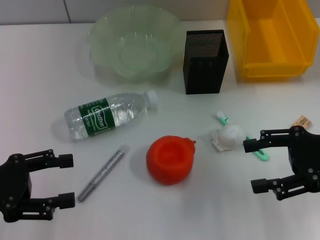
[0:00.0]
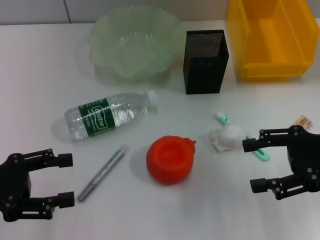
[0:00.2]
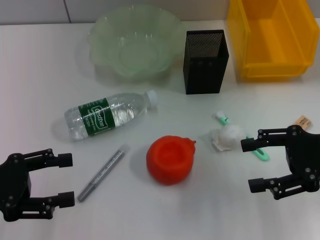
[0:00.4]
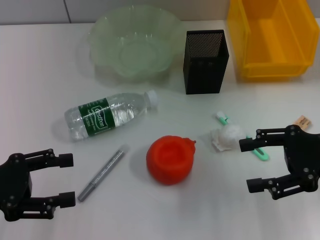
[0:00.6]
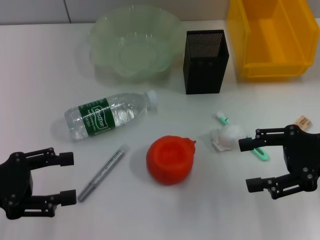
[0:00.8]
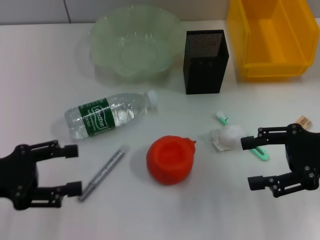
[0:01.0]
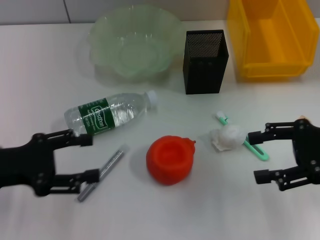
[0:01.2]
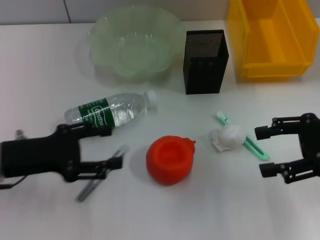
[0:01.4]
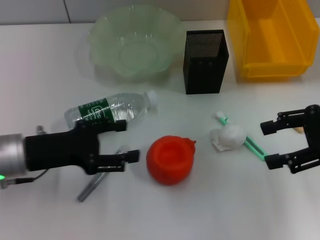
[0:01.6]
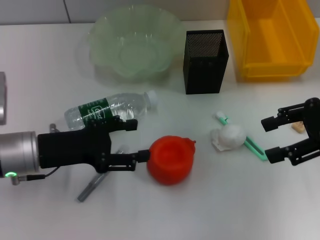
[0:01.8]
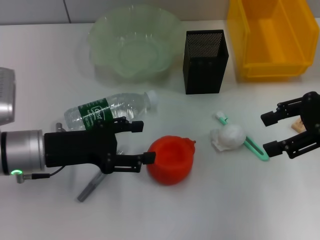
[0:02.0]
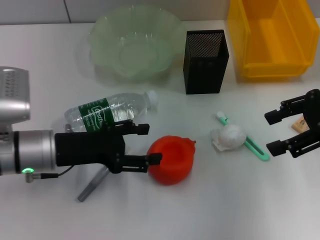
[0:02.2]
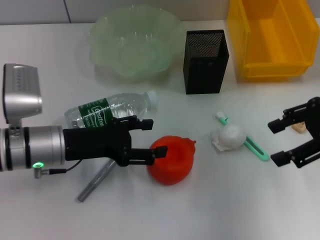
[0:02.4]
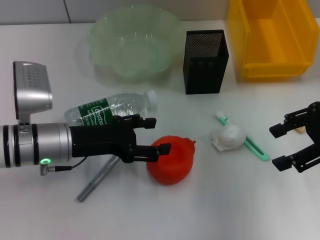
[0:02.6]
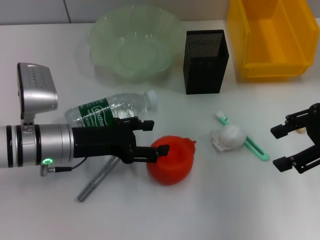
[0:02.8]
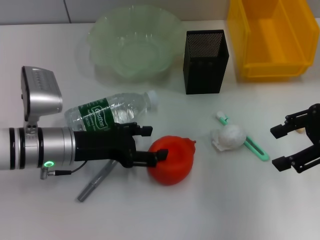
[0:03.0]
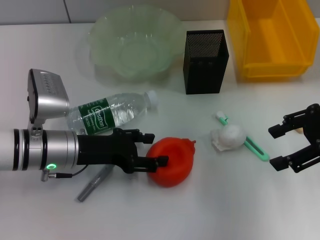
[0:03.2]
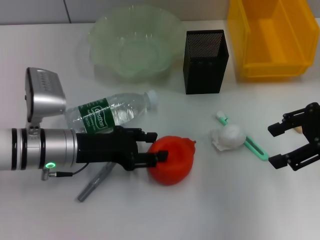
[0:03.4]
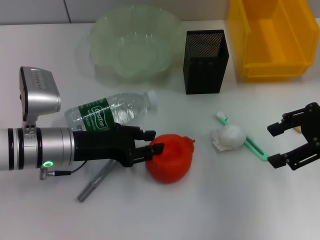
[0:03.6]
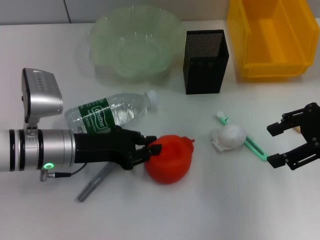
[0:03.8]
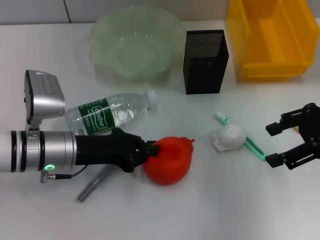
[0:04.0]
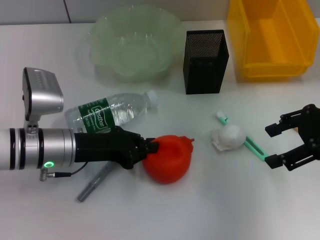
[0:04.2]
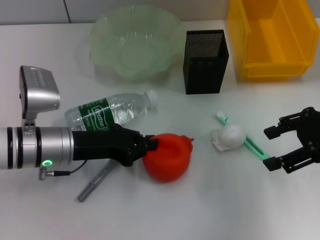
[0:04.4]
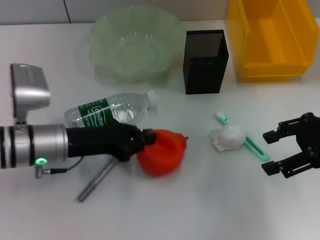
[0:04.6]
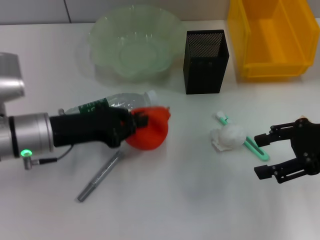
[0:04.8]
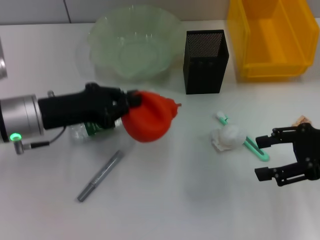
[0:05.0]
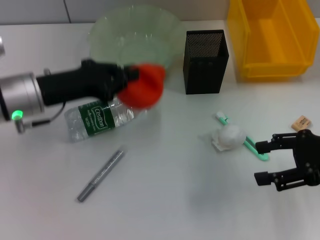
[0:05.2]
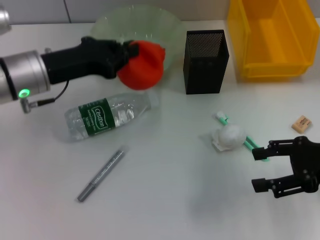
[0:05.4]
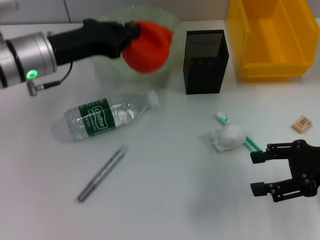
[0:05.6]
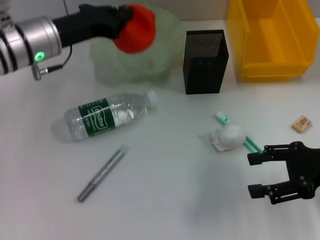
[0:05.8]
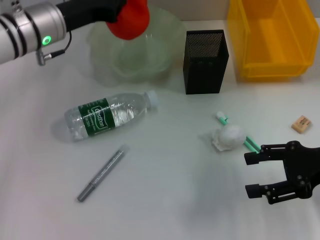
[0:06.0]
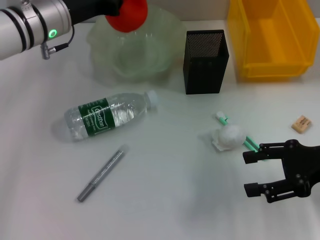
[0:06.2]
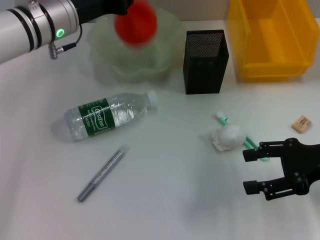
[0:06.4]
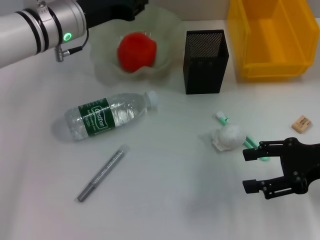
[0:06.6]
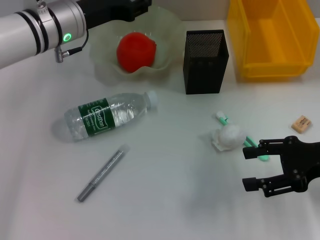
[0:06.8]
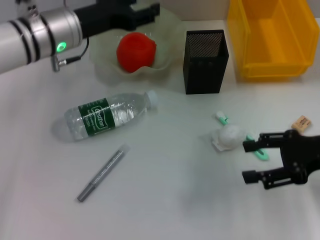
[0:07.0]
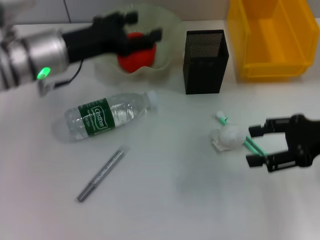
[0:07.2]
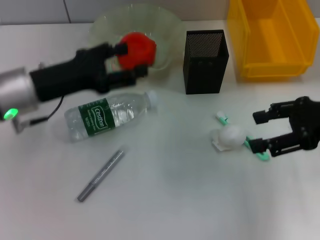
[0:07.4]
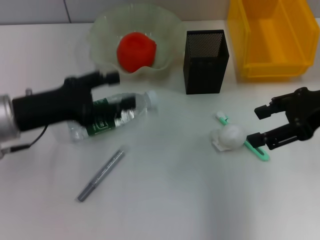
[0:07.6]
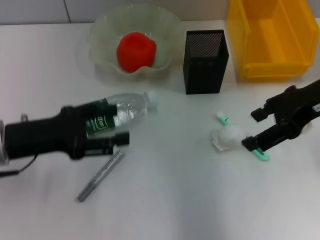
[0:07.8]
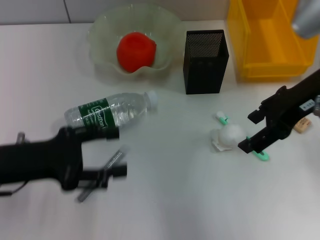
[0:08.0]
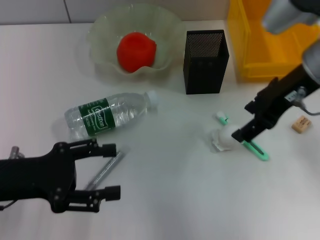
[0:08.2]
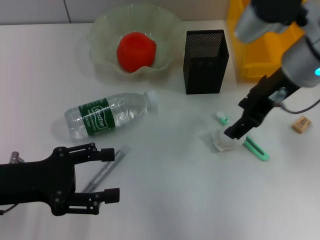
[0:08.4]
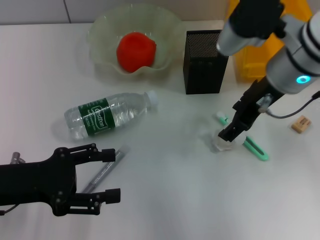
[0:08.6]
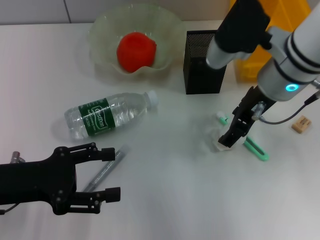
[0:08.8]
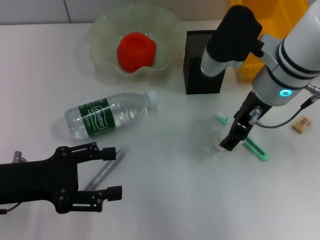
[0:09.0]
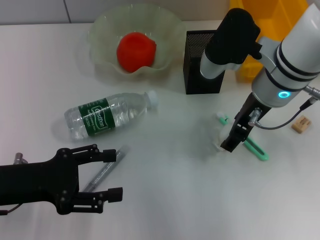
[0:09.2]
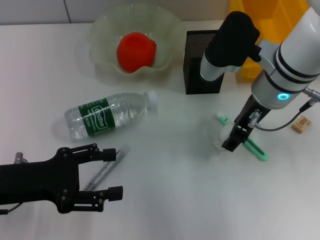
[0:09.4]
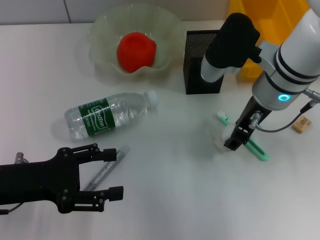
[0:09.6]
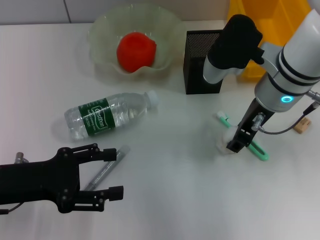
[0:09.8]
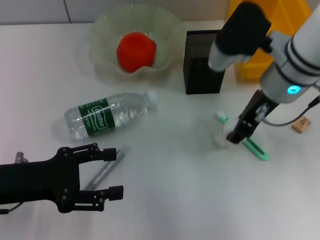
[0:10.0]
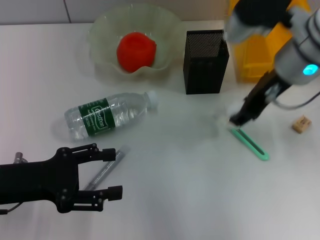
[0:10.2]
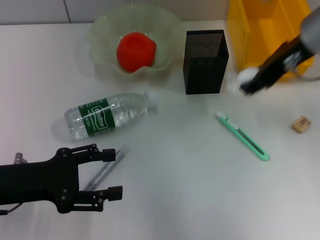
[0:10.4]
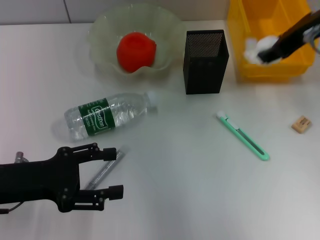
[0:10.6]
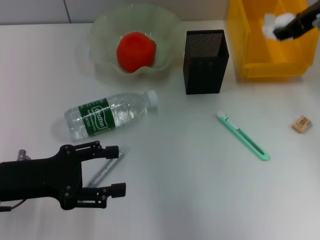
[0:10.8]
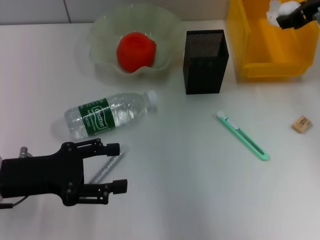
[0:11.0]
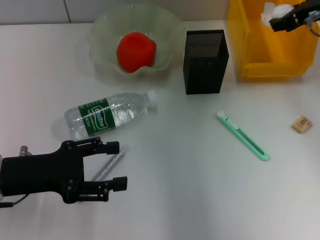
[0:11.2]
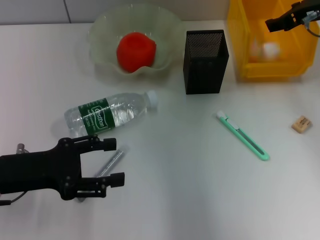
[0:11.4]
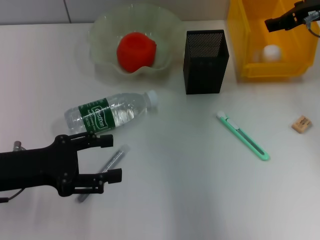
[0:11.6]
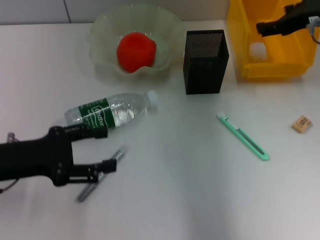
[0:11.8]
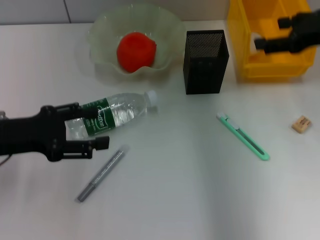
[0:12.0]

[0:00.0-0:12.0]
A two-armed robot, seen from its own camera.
Step, 0:00.0 to 0:04.4: Grab the orange with the left hand.
Step, 0:04.6 to 0:06.6: Place the orange into the fruit bowl with the left hand.
Step, 0:06.8 to 0:09.6: Grab the paper ball with the right hand.
Step, 0:09.8 to 0:11.4: Place the paper ball into the trash can with the right hand.
0:00.0 to 0:01.6: The left gripper shifts roughly 10 cm to the right and forward.
0:01.6 to 0:03.0: The left gripper changes place by approximately 5 cm.
0:03.0 to 0:04.4: The left gripper closes its fingers.
0:04.4 to 0:06.0: The left gripper heads forward and upward, covering roughly 15 cm, while the right gripper shifts about 5 cm downward.
0:06.0 to 0:07.6: The left gripper goes roughly 15 cm backward and to the left, and opens its fingers; the right gripper shifts about 10 cm upward and forward.
0:07.6 to 0:09.0: The left gripper goes roughly 5 cm backward, while the right gripper is displaced to the left by roughly 15 cm.
0:09.0 to 0:10.4: The right gripper travels upward and to the right by about 10 cm, and closes its fingers.
0:10.4 to 0:12.0: The right gripper is displaced to the right by approximately 10 cm, and opens; the left gripper shifts by some 5 cm.

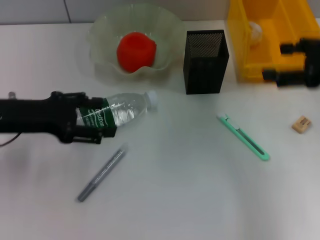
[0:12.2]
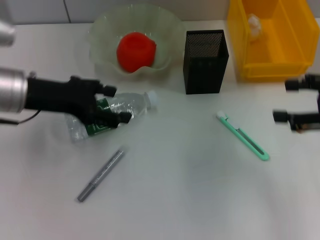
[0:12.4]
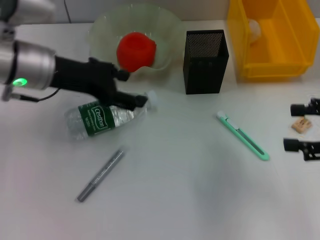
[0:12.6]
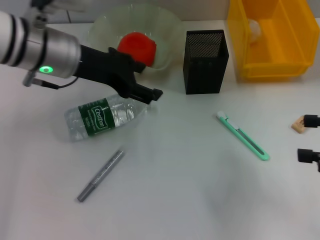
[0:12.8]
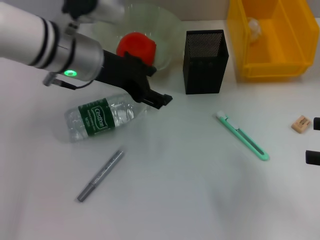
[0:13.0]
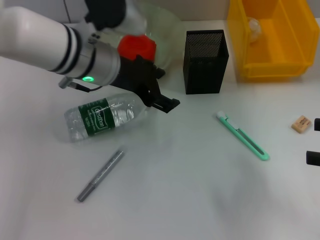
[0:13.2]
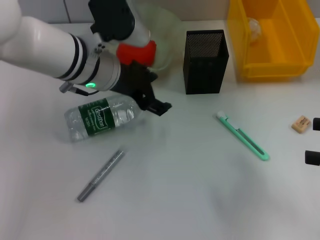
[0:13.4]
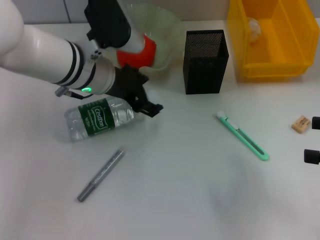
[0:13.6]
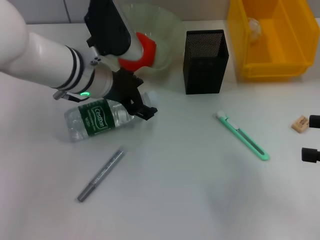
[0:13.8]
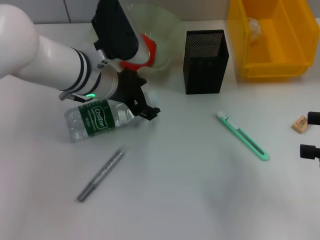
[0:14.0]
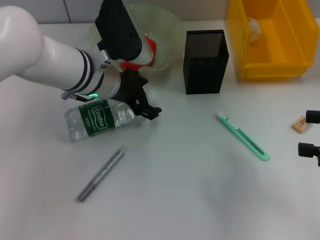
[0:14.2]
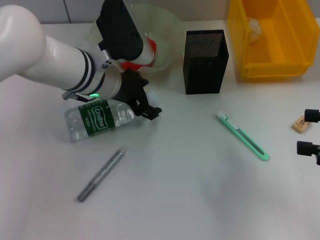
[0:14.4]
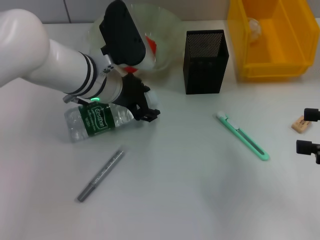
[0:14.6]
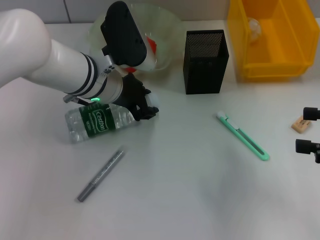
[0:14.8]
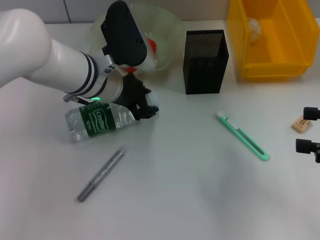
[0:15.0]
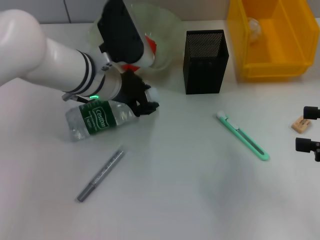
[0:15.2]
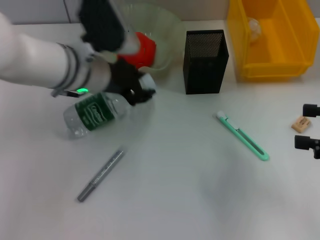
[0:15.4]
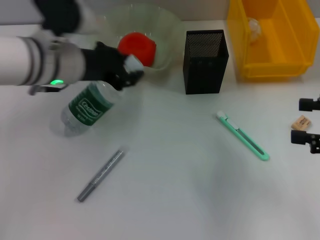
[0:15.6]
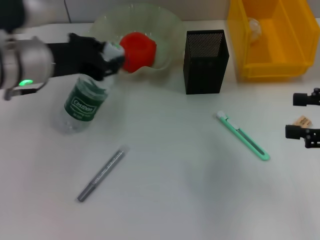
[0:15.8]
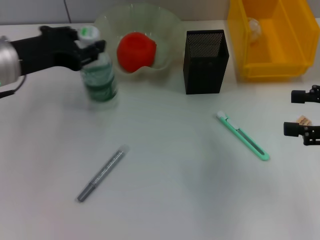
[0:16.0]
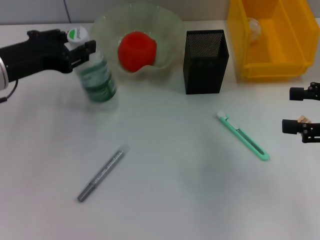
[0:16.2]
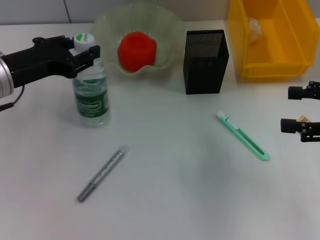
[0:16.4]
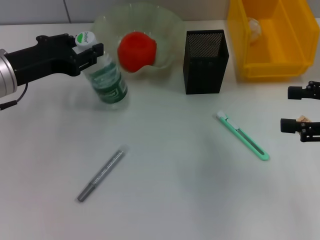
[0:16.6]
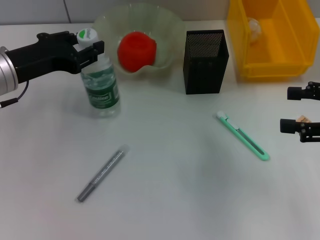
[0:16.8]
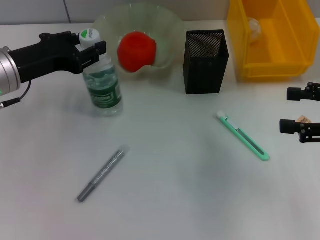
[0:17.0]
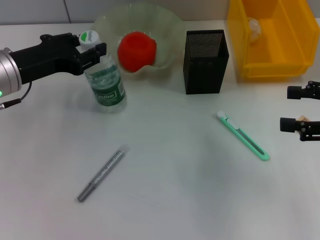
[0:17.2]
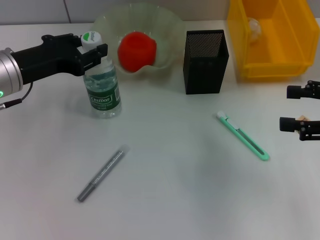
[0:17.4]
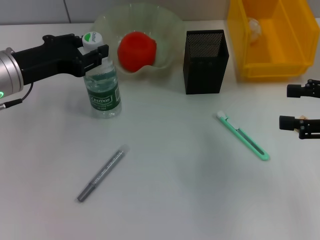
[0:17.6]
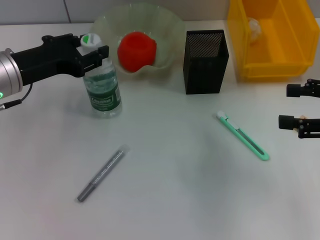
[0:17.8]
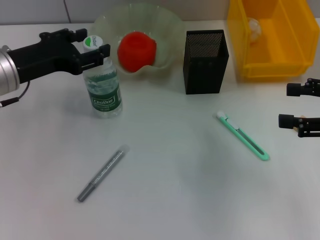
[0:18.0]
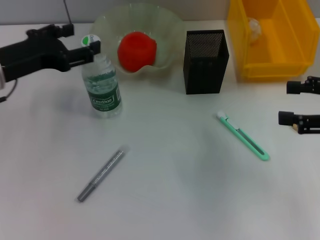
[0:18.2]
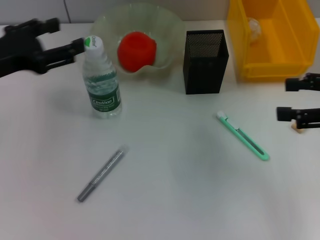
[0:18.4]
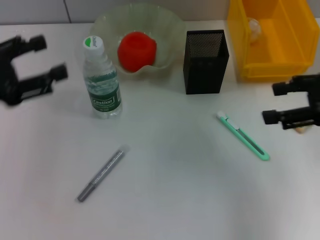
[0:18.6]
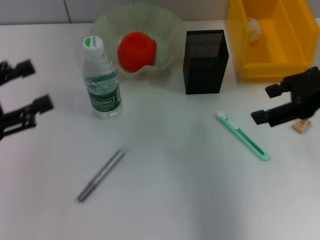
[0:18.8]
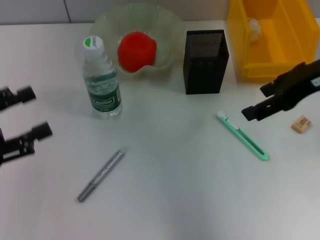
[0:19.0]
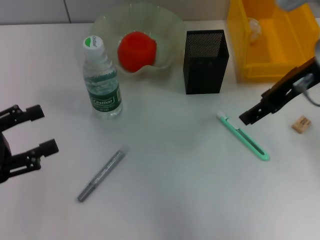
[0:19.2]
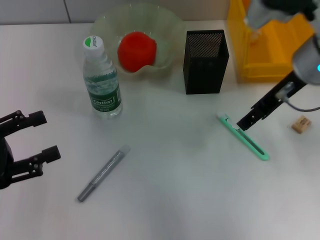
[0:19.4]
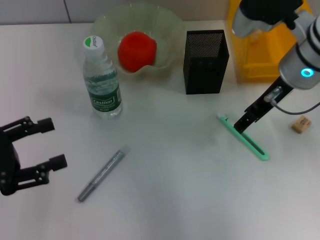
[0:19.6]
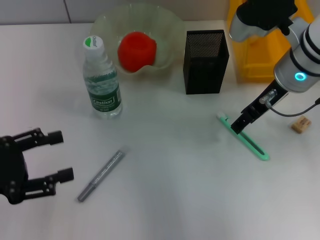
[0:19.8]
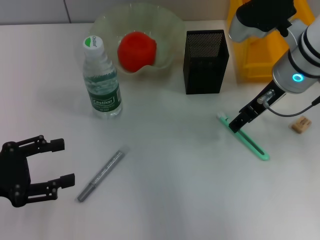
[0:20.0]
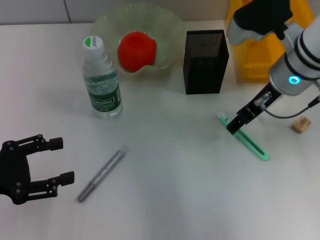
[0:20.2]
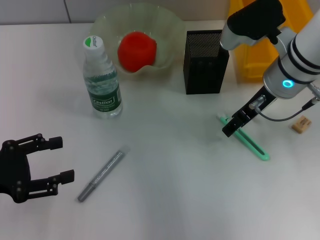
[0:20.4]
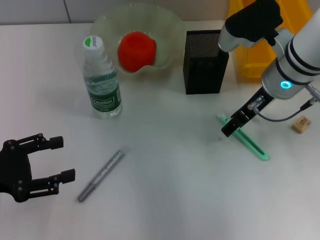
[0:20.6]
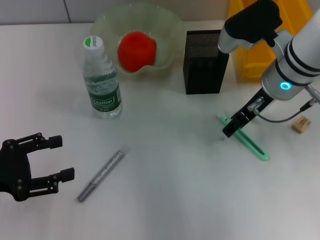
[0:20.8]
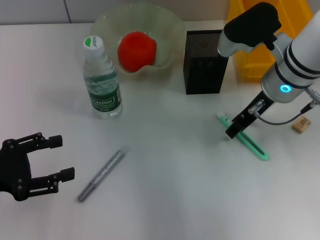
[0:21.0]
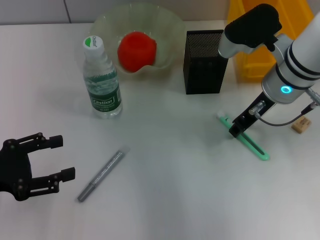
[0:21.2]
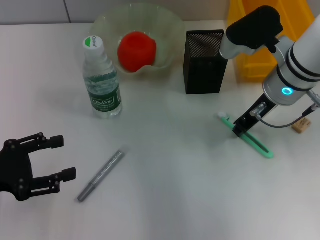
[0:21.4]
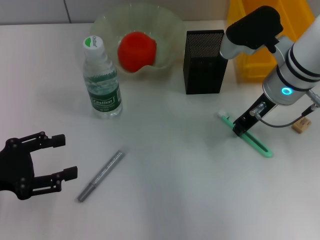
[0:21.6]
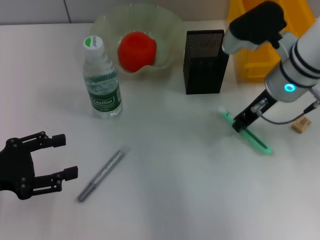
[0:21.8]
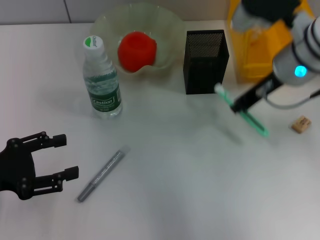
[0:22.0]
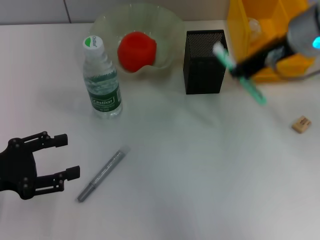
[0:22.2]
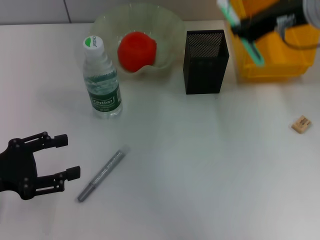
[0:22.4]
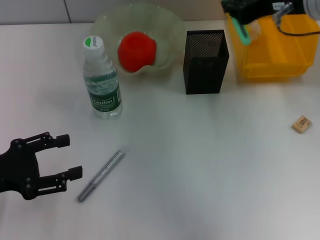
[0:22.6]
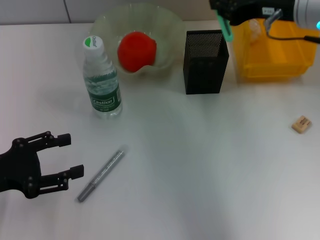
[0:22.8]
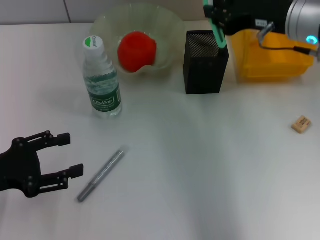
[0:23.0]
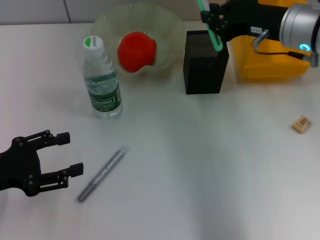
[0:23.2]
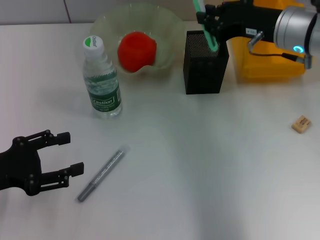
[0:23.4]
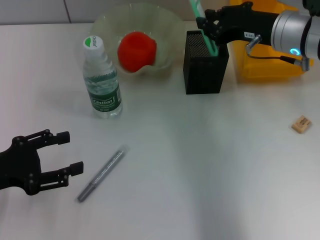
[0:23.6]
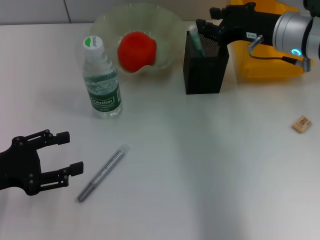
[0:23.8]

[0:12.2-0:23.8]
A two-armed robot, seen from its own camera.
Step, 0:12.2 to 0:14.8: Grab the water bottle with the left hand.
Step, 0:15.0 to 0:17.8: Place the water bottle on the table with the left hand.
Step, 0:18.0 to 0:21.4: Grab the blue utility knife with the right hand.
Step, 0:21.6 to 0:23.6: Place the blue utility knife into the pen holder with the right hand.
0:12.2 to 0:13.6: The left gripper is displaced to the right and forward by about 15 cm. Meanwhile the right gripper travels backward and to the right by some 10 cm.
0:13.6 to 0:15.0: The left gripper closes up.
0:15.0 to 0:16.6: The left gripper goes roughly 15 cm to the left.
0:16.6 to 0:18.0: Neither gripper changes place.
0:18.0 to 0:19.4: The left gripper is displaced backward and to the left by some 15 cm. Meanwhile the right gripper is displaced to the left and forward by roughly 20 cm.
0:19.4 to 0:21.0: The right gripper is displaced downward by about 5 cm.
0:21.0 to 0:22.4: The right gripper moves upward, approximately 10 cm, and closes its fingers.
0:22.4 to 0:23.8: The right gripper shifts about 10 cm downward.
